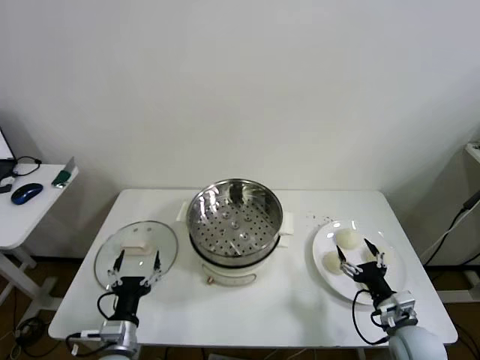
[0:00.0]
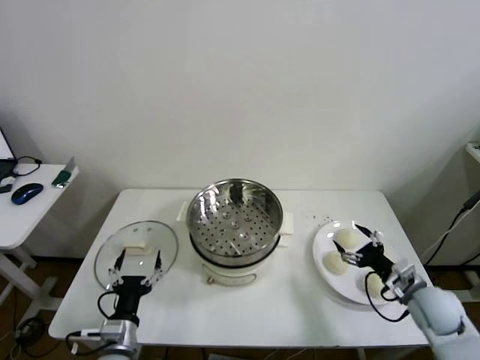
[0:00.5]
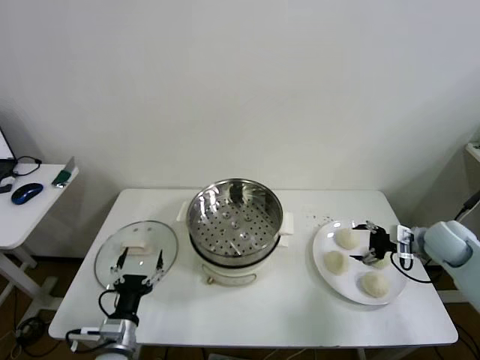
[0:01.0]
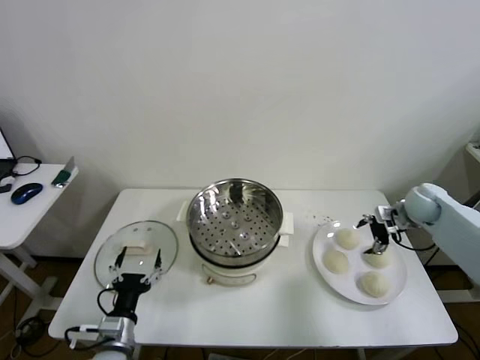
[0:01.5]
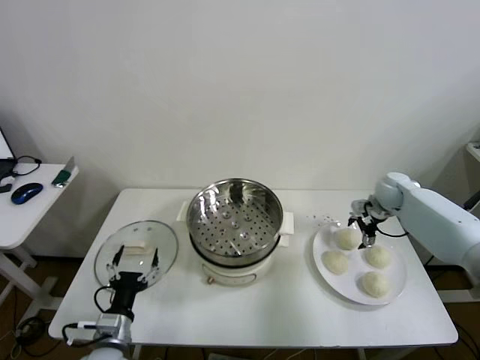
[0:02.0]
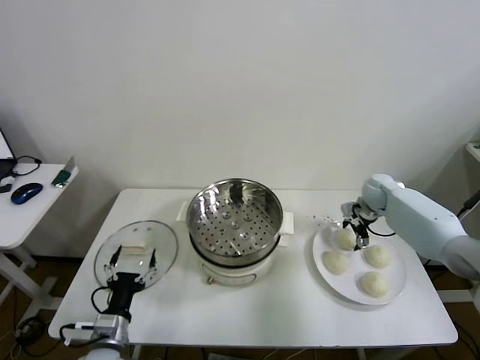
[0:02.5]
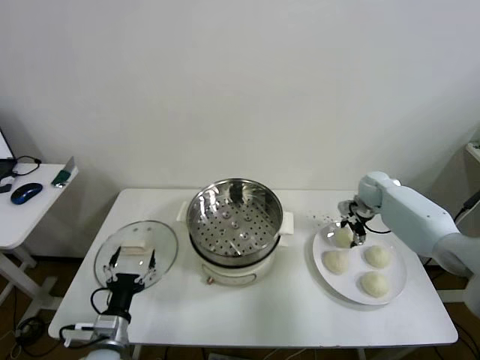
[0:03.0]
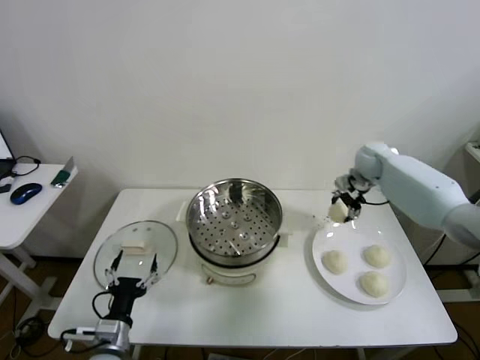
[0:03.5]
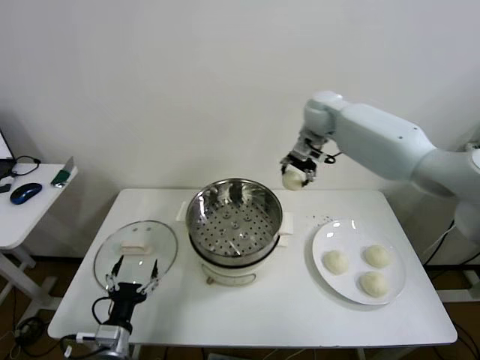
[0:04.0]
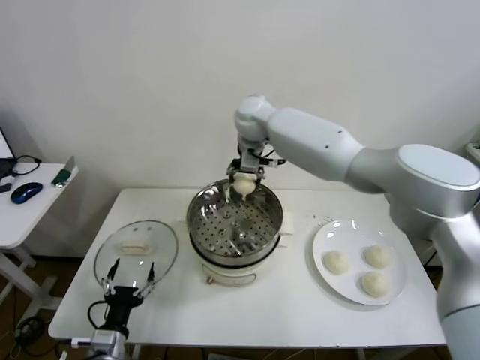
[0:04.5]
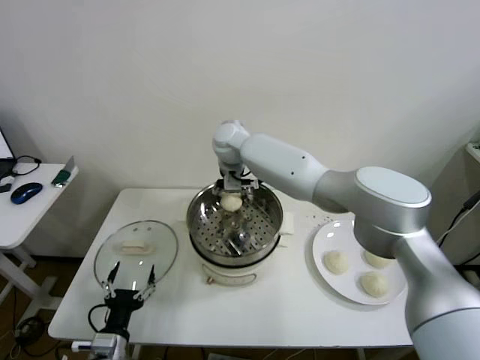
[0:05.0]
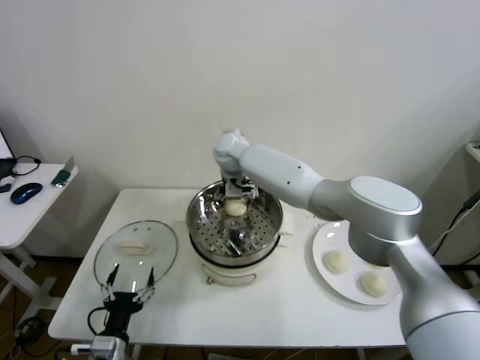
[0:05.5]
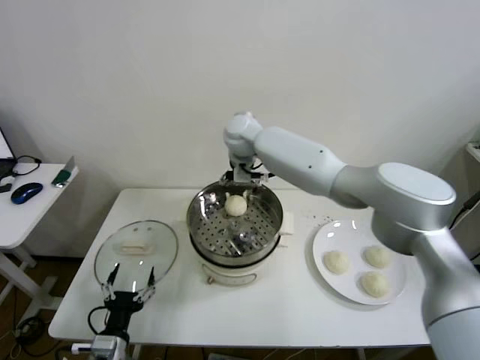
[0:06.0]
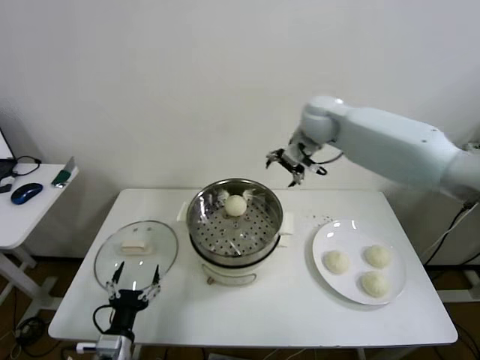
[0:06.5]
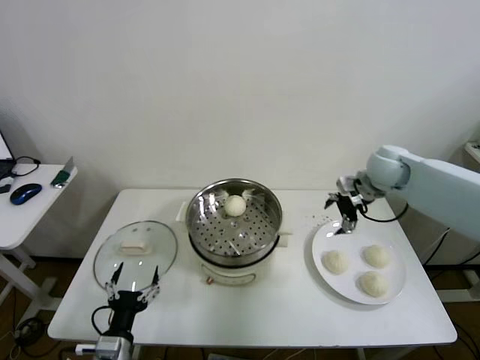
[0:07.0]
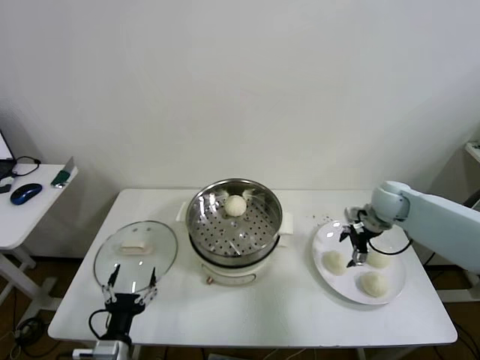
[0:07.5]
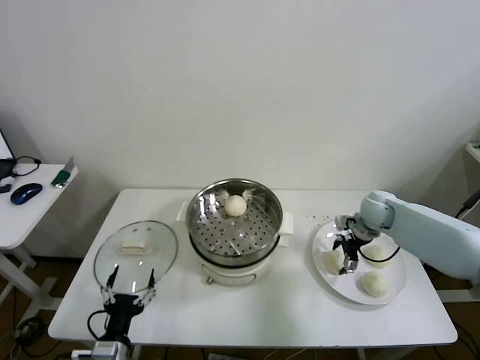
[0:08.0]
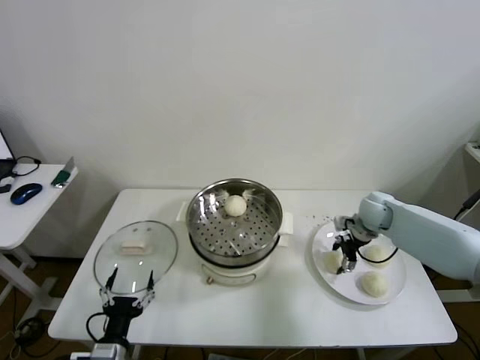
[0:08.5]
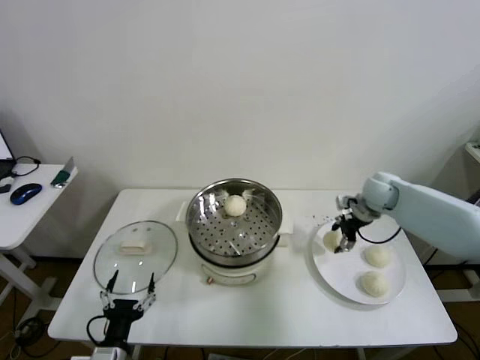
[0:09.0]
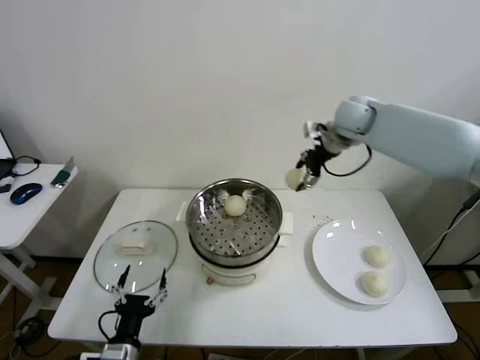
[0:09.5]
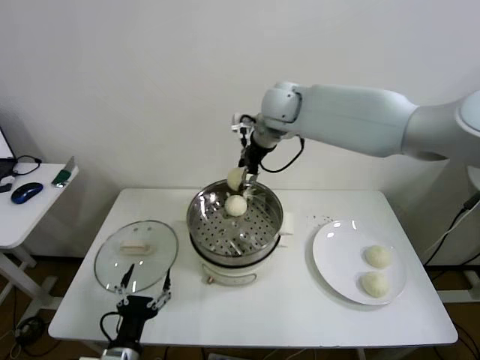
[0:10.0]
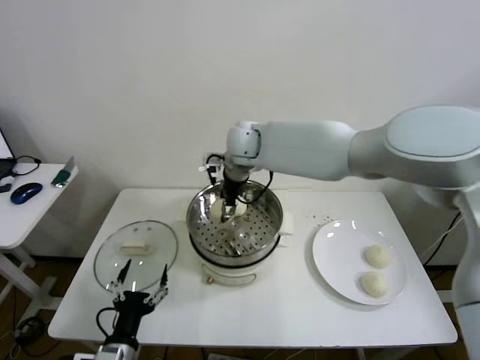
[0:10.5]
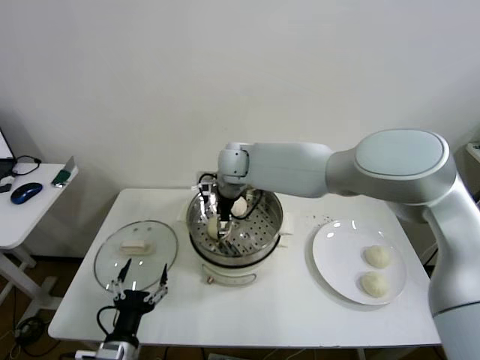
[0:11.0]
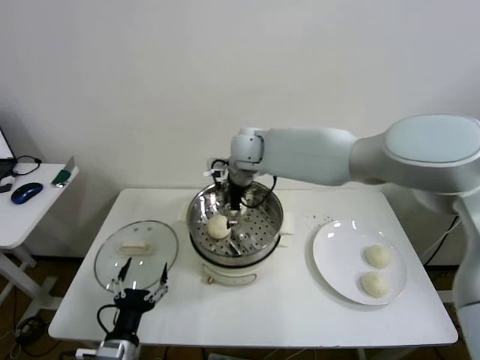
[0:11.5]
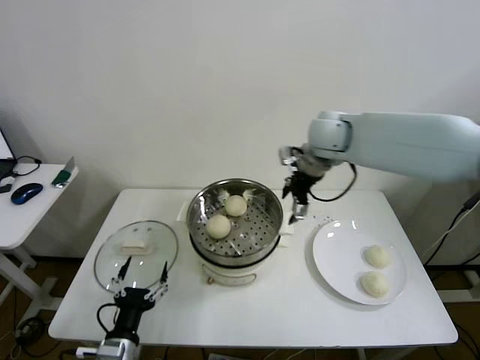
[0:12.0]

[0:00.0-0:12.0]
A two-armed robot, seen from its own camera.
Step, 0.0 to 2.5 s: Grasp the baozi in the plate with right gripper.
Step, 3.0 to 5.5 s: Place the baozi on the steamer with right gripper.
Step, 6.0 to 8.0 s: Grasp the baozi in the plate with right gripper.
Step, 8.5 to 11.0 s: Place the baozi on the steamer with right gripper.
2.0 to 4.0 s: The right gripper travels to the left and upward by some 35 cm, and closes up.
4.0 to 6.0 s: The right gripper shifts some 10 cm to the left, and opens its fingers.
6.0 to 8.0 s: The right gripper travels to the right and downward by roughly 40 cm.
8.0 to 10.0 s: The right gripper moves to the left and upward, some 40 cm, and closes.
10.0 to 12.0 s: The right gripper goes approximately 15 cm to the right, and opens its fingers.

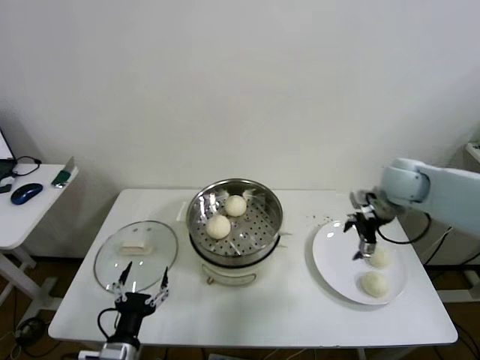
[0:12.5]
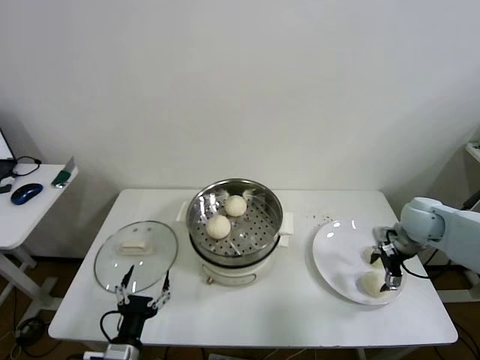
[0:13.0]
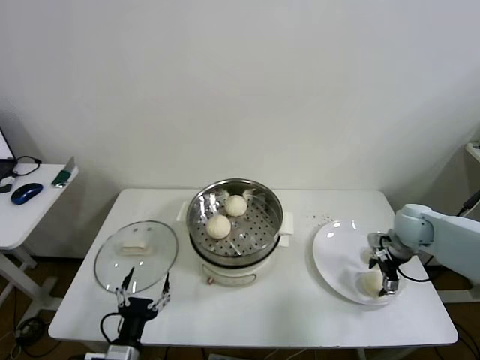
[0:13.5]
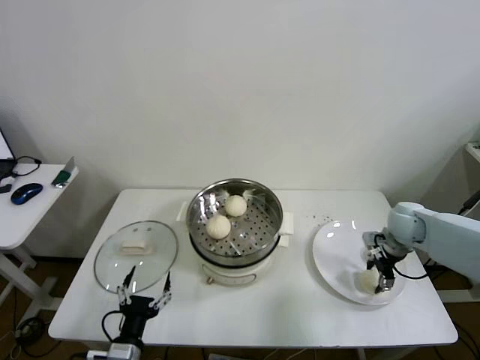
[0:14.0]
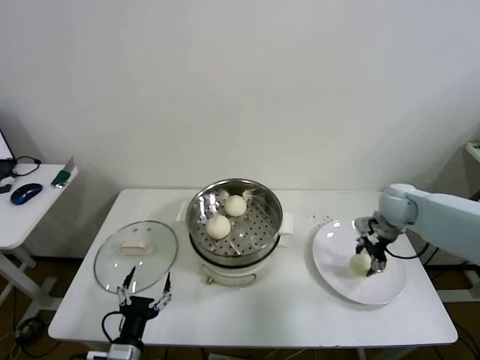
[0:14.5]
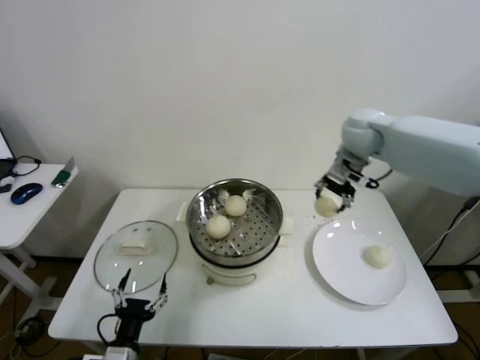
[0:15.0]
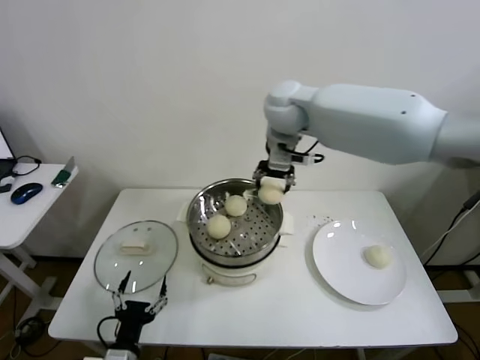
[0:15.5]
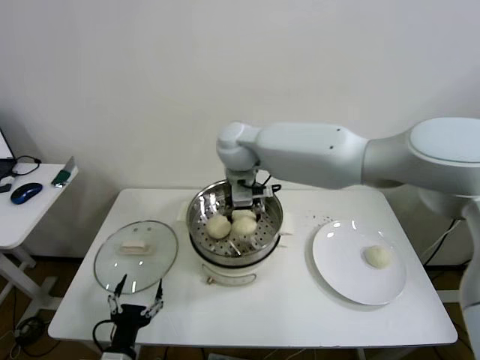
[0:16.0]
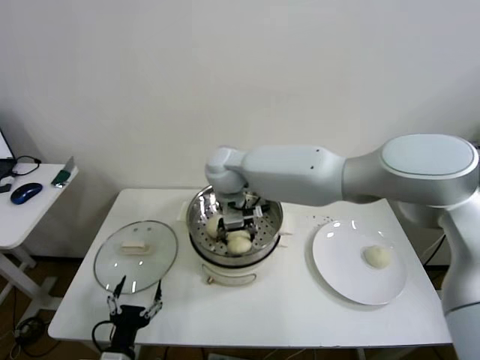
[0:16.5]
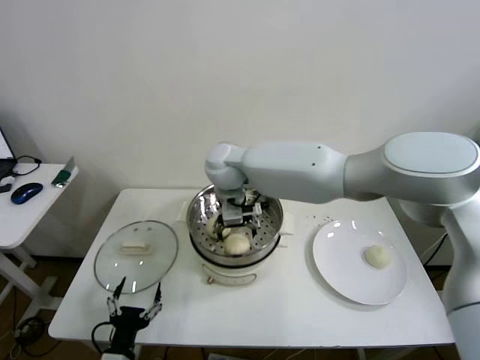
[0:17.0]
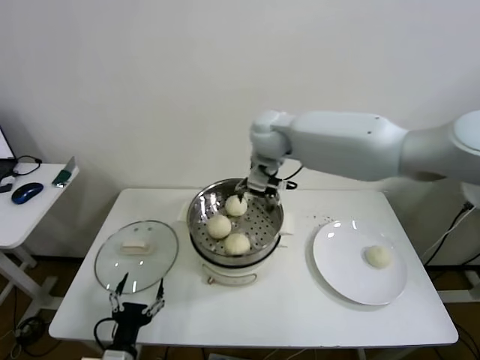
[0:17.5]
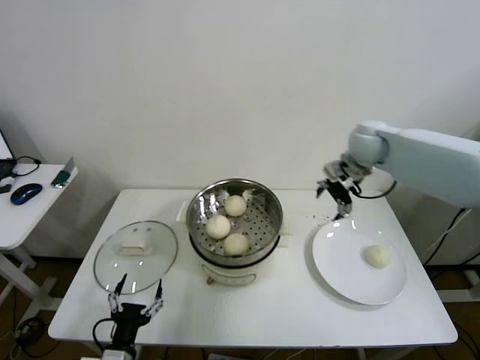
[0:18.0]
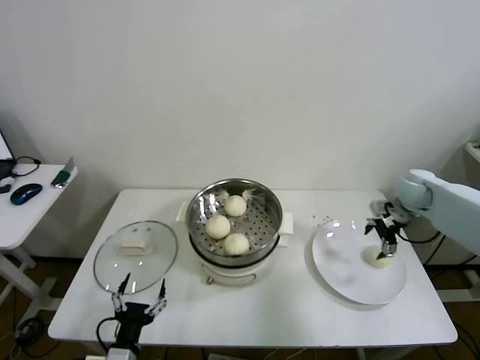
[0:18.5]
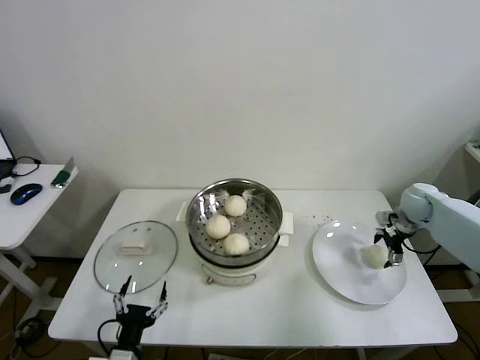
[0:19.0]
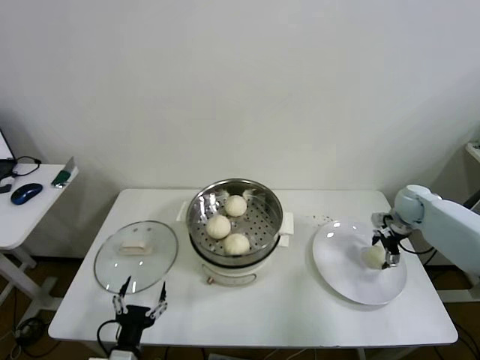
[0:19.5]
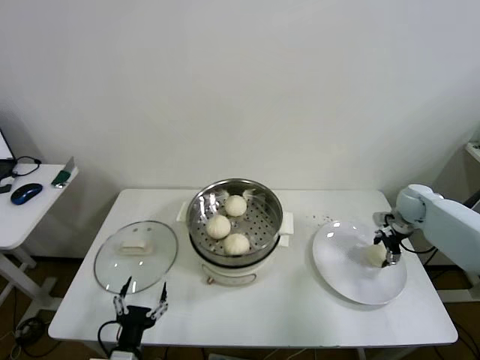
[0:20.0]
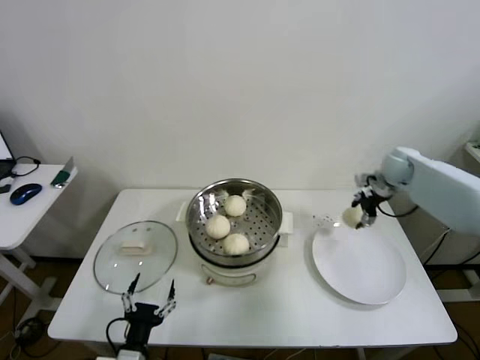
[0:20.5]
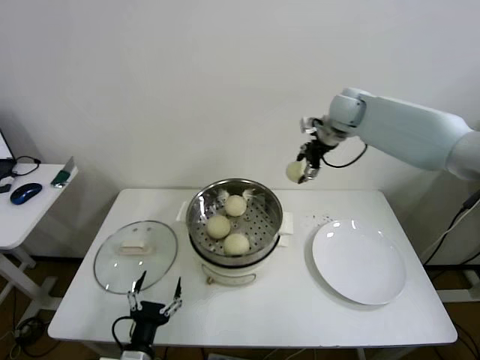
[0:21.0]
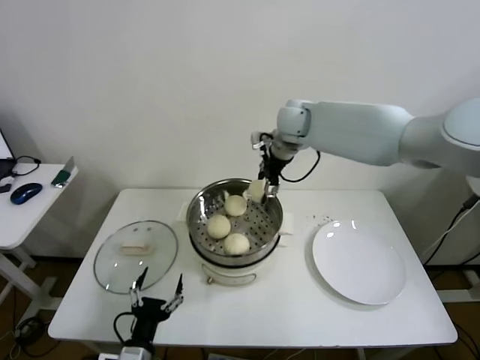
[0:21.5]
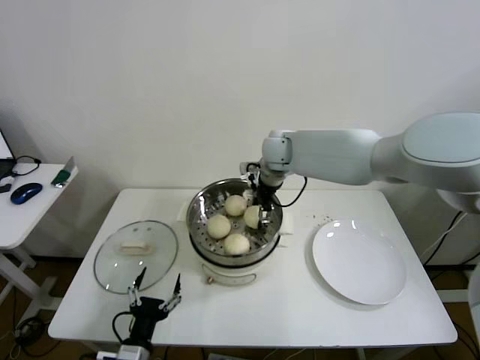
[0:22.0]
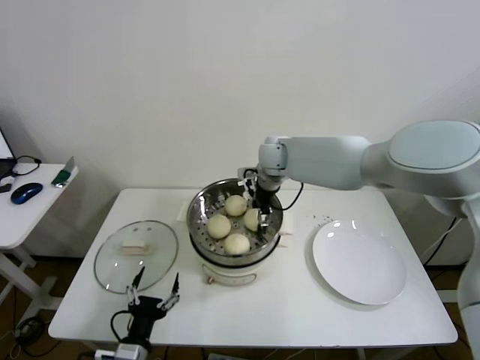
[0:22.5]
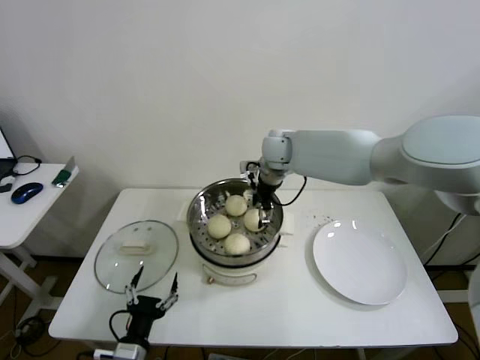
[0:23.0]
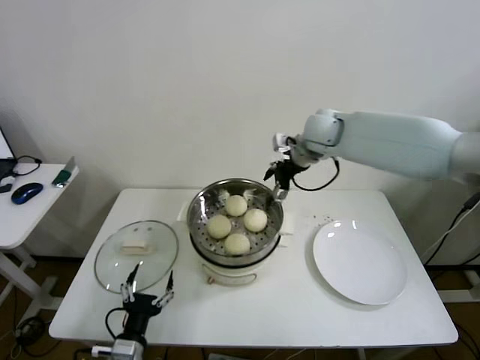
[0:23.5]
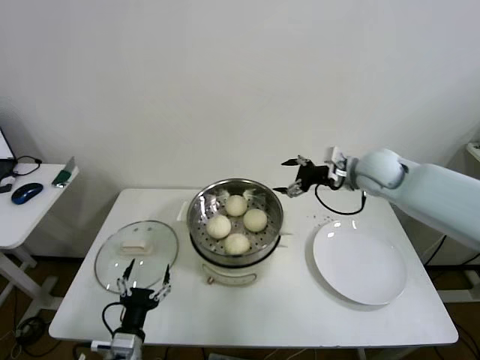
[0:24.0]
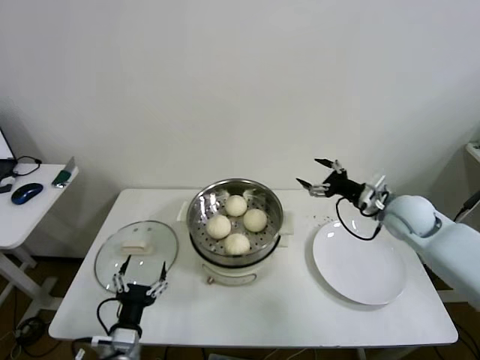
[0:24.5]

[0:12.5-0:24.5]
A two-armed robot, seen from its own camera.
Step, 14.0 to 16.5 s: Place the baozi on the steamer with right gripper.
Step, 17.0 to 19.5 s: Grasp the baozi in the plate with right gripper.
Step, 20.0 to 22.5 s: Place the baozi on the steamer with right gripper.
12.5 to 14.5 s: The right gripper shifts some 5 cm downward, and closes.
14.5 to 16.5 s: The right gripper travels to the left by about 40 cm.
16.5 to 18.5 s: The right gripper heads to the right, covering about 50 cm, and opens.
18.5 to 20.5 s: The right gripper goes approximately 5 cm forward, and closes.
20.5 to 22.5 s: The right gripper moves to the left, some 30 cm.
22.5 to 24.5 s: The right gripper goes about 30 cm to the right and backward, and opens.

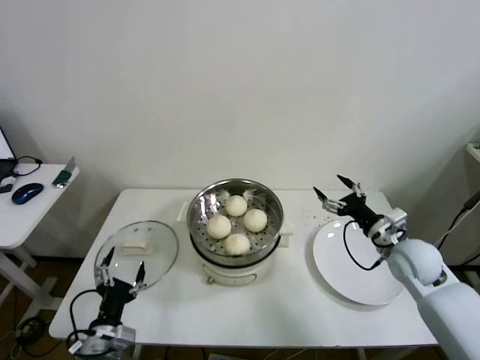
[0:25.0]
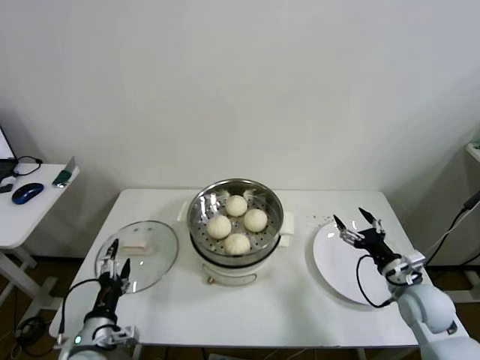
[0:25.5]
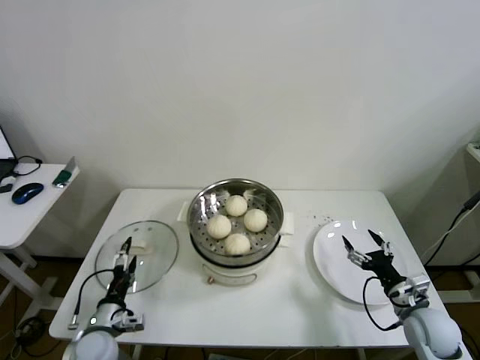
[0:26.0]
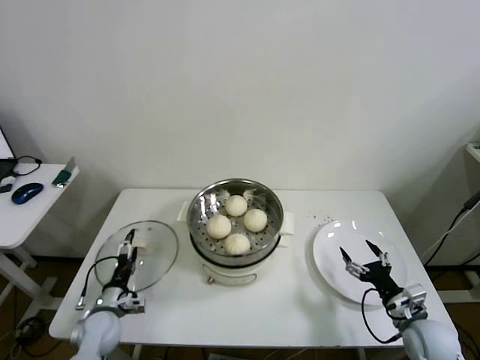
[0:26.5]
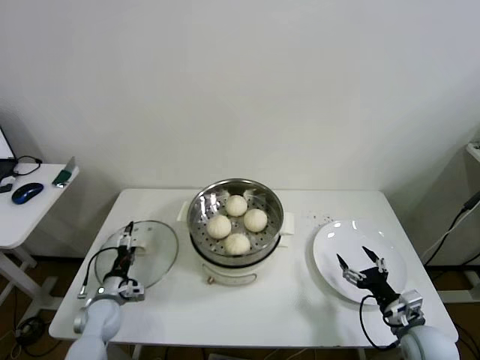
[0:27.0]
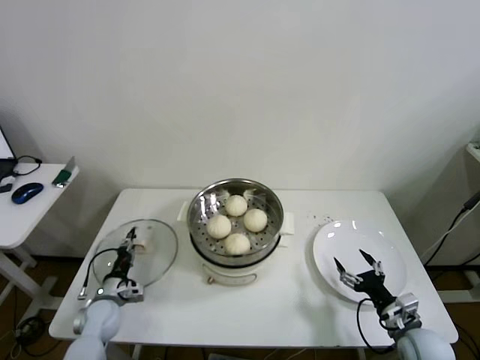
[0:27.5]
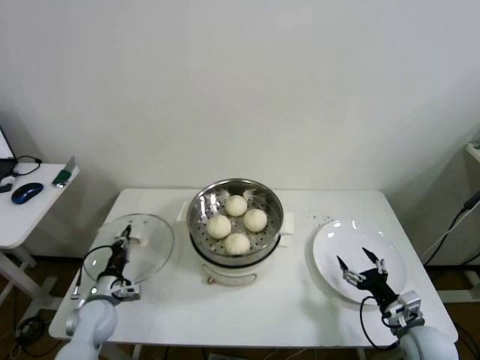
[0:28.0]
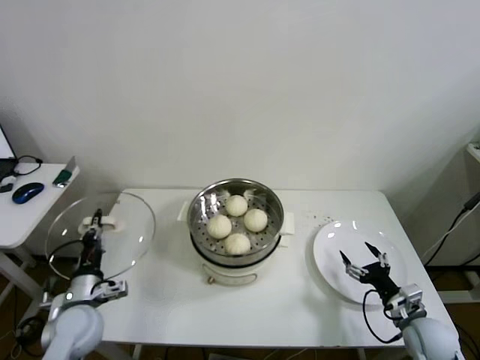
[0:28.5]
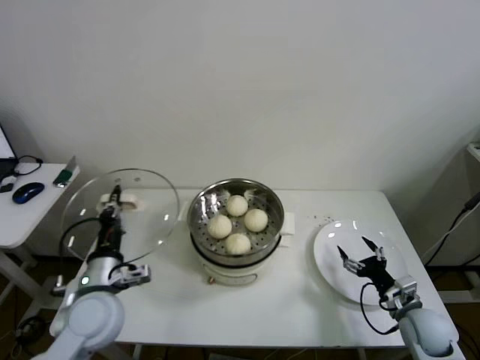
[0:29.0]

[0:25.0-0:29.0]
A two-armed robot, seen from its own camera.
Step, 25.0 to 27.5 s: Grasp the pot lid with left gripper.
25.0 to 27.0 s: The right gripper heads backward and downward, covering roughly 20 cm; the left gripper goes about 20 cm forward, downward and to the left.
27.0 to 29.0 s: The left gripper is displaced upward and to the right by some 20 cm, and closes its fingers.
